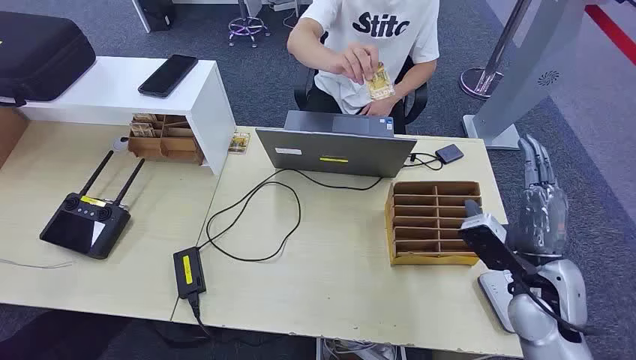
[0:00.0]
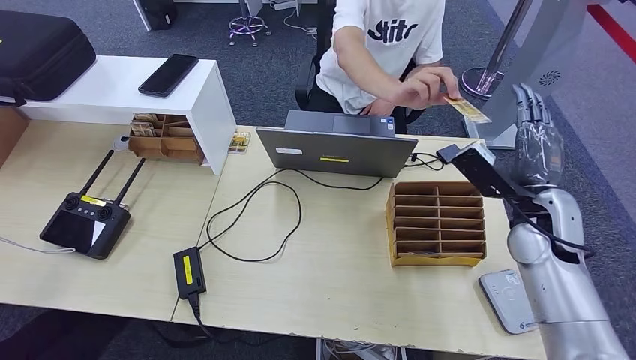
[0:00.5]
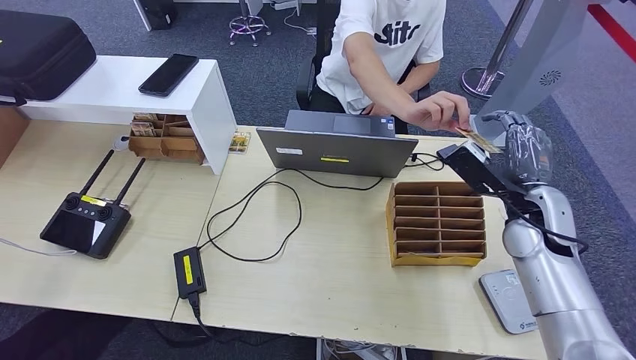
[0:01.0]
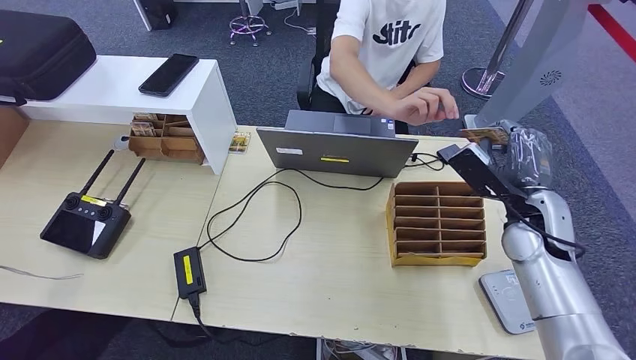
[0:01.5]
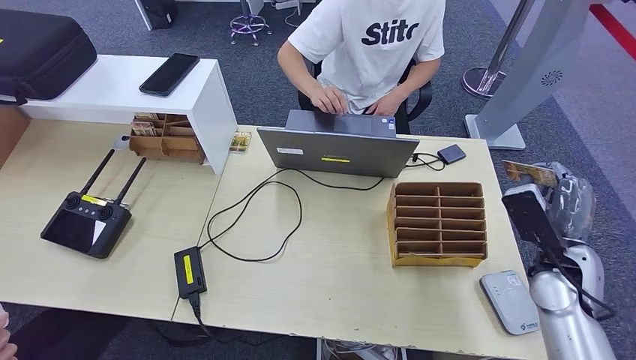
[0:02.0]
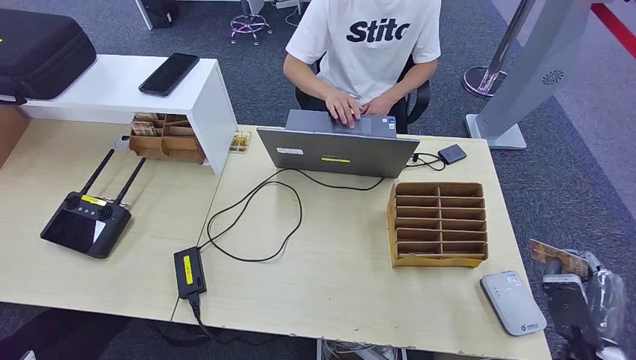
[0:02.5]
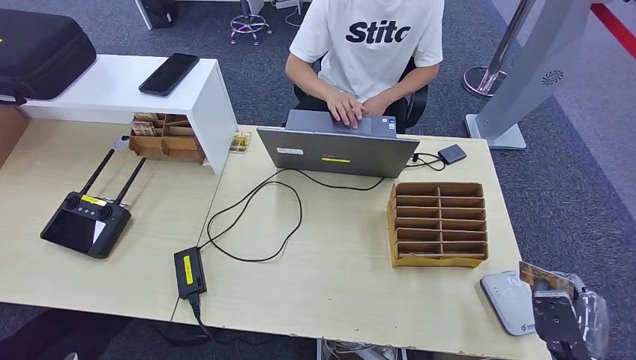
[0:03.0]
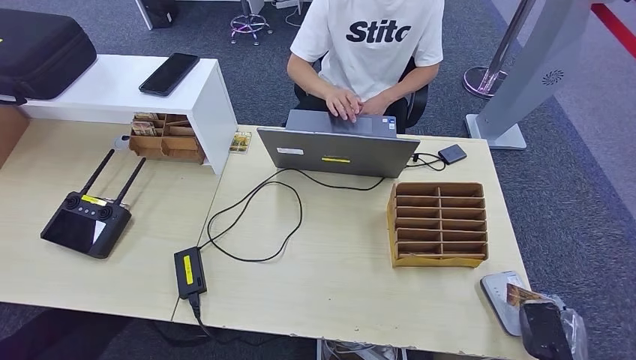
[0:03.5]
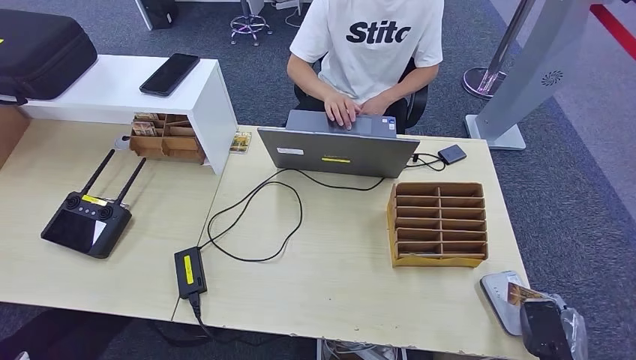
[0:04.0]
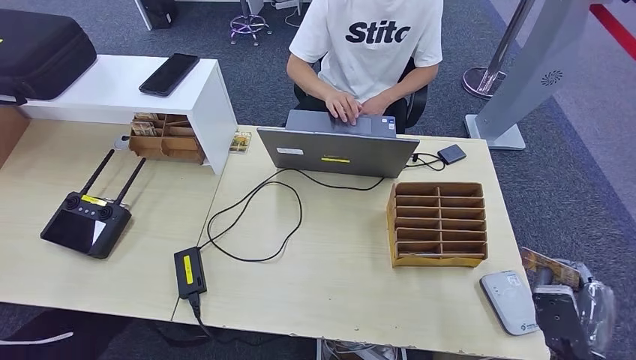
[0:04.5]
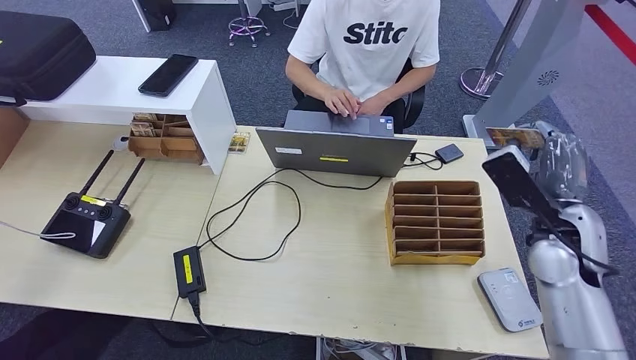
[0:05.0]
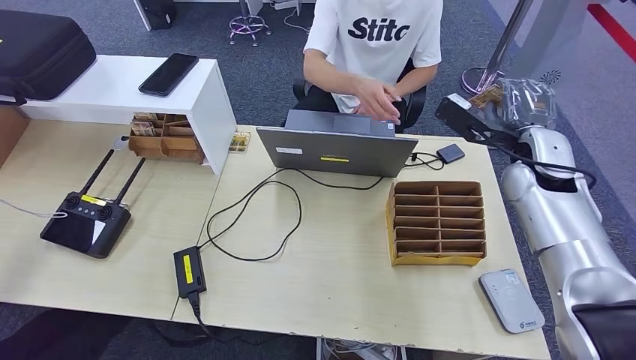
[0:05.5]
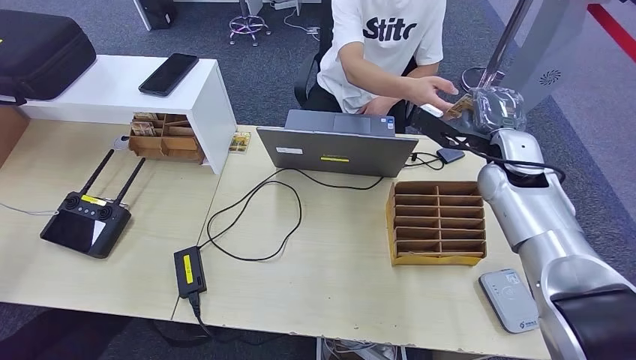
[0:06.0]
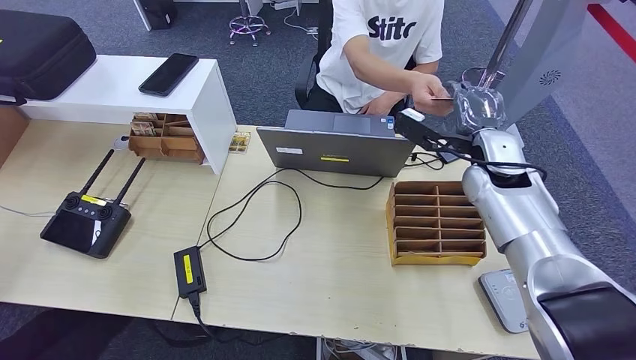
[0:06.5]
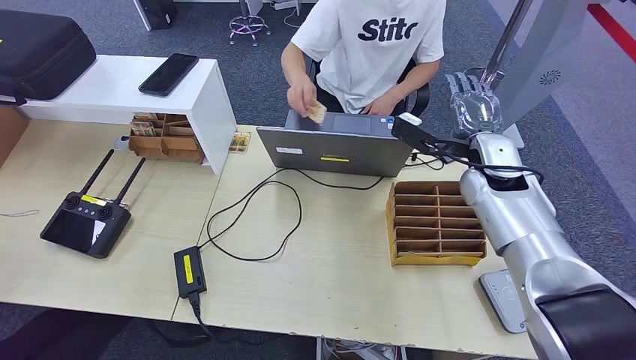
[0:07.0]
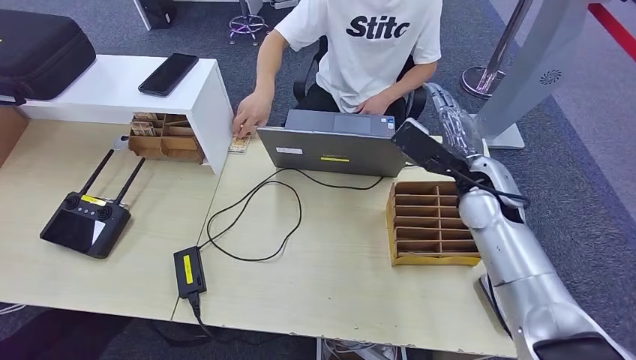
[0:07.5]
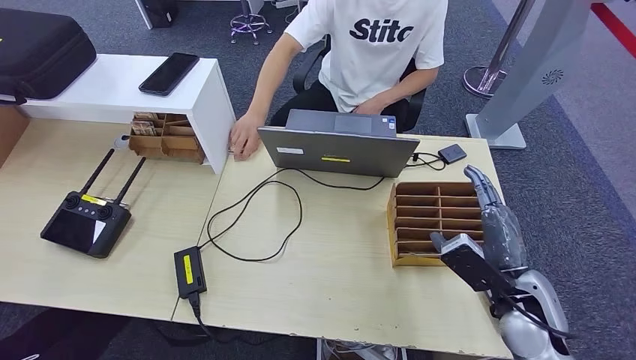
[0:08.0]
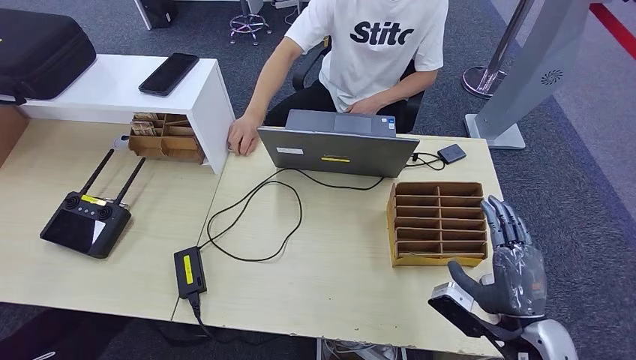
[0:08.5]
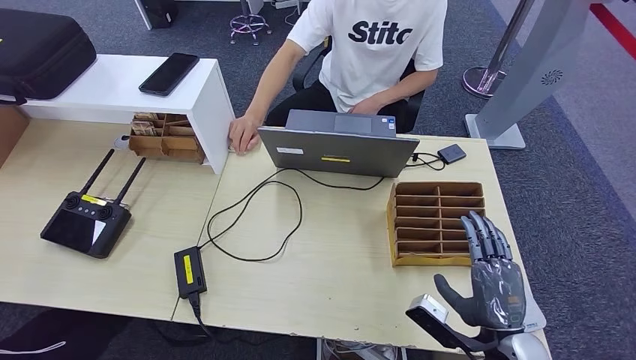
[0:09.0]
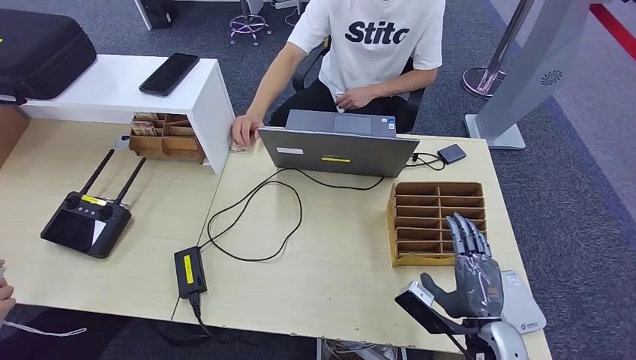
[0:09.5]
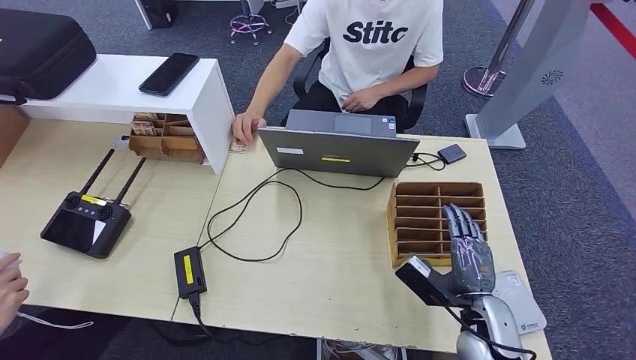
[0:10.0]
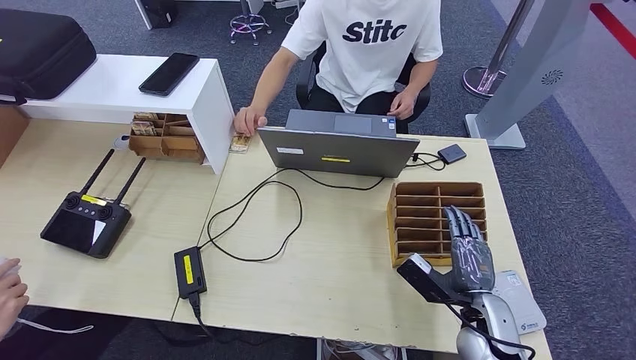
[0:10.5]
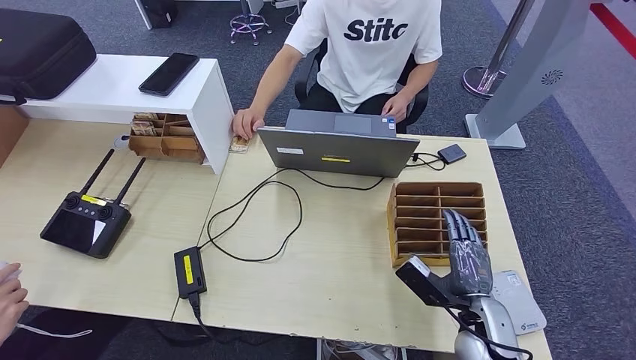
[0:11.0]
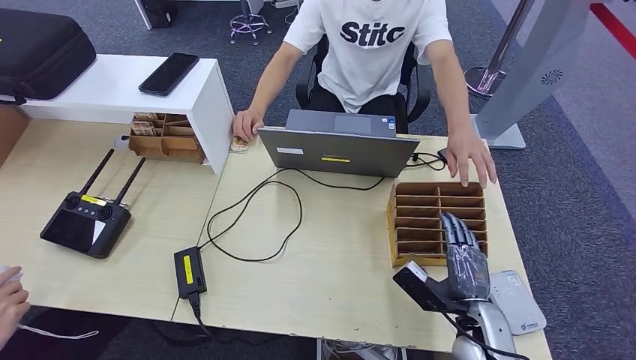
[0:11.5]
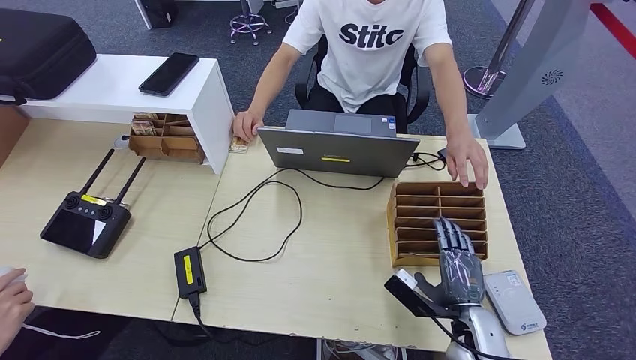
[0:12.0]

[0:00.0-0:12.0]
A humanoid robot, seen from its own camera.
Step, 0:00.0 to 0:02.5: Take the ID card from the person's hand.
Step, 0:03.0 to 0:05.0: Place the ID card on the card reader.
Step, 0:05.5 to 0:08.0: Hand the ID card to the person.
0:02.0 to 0:04.0: The right hand is displaced backward and downward by roughly 20 cm.
0:04.0 to 0:06.0: The right hand shifts some 40 cm forward and upward.
0:06.0 to 0:08.0: The right hand heads backward and downward, covering about 20 cm.
0:08.0 to 0:10.0: The right hand travels downward by approximately 10 cm.
0:10.0 to 0:12.0: There are only small adjustments of the hands.

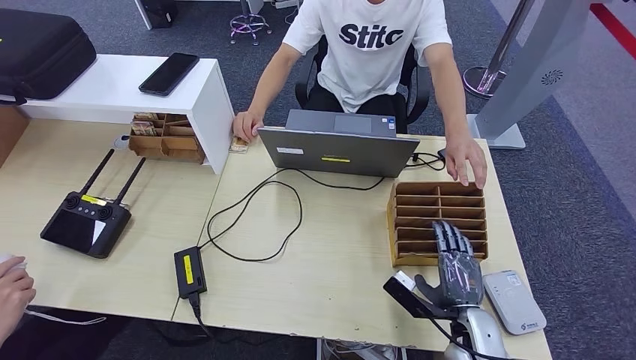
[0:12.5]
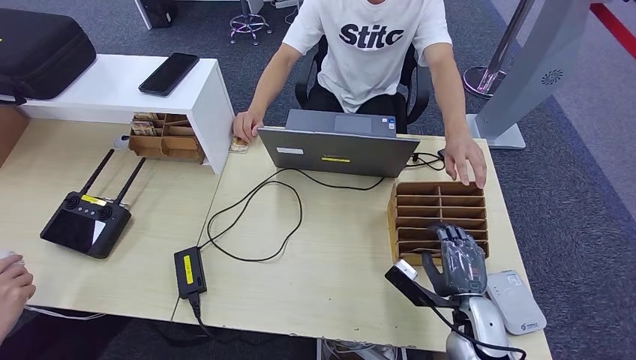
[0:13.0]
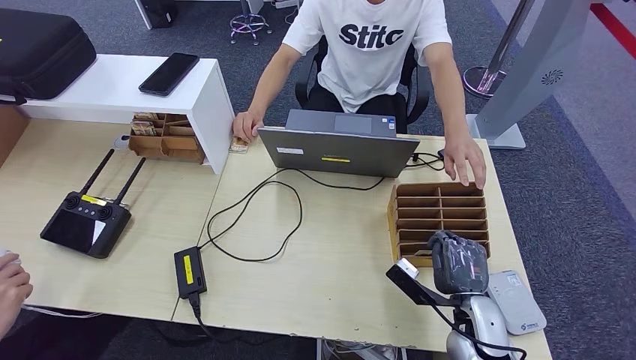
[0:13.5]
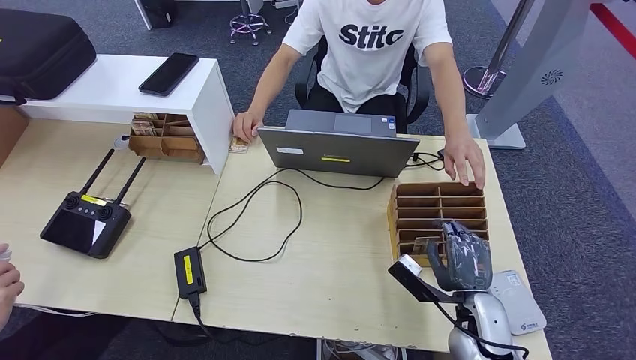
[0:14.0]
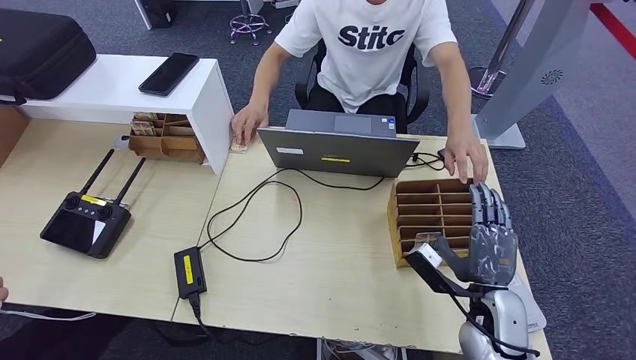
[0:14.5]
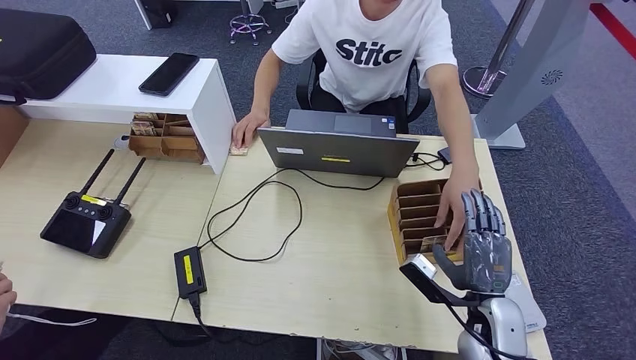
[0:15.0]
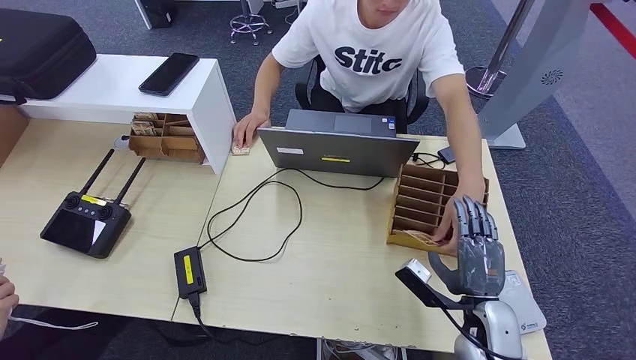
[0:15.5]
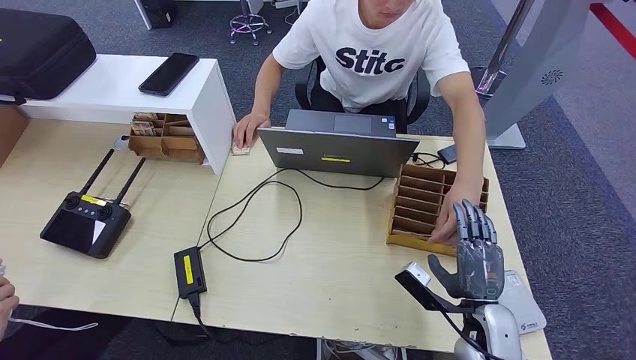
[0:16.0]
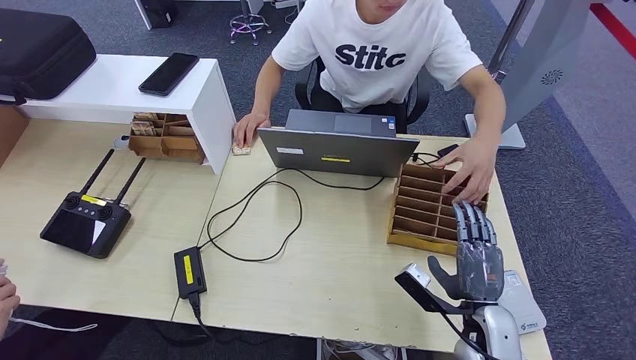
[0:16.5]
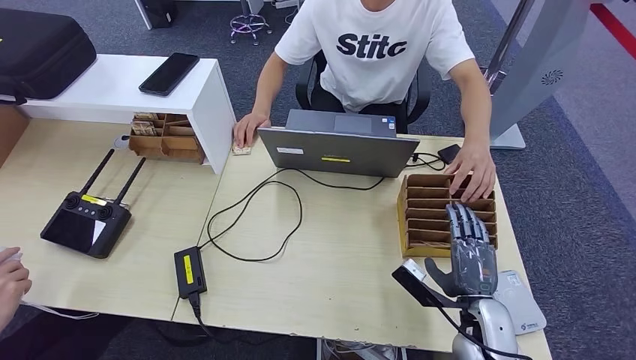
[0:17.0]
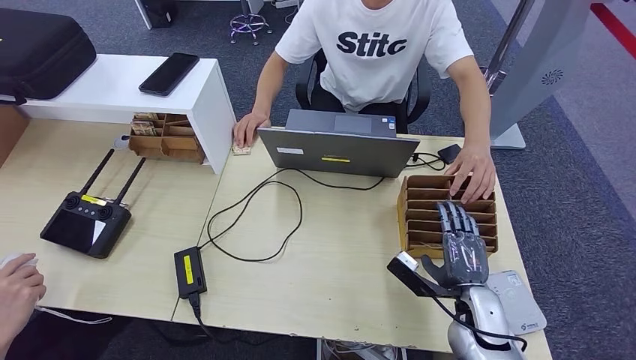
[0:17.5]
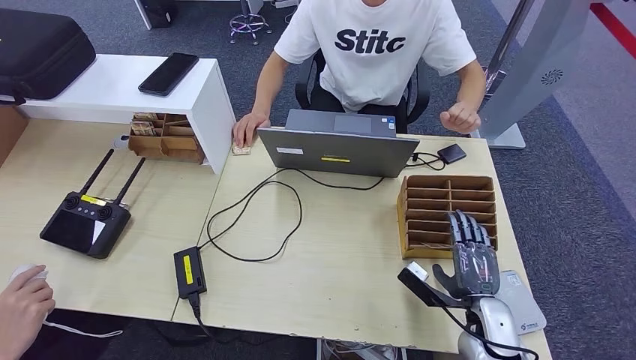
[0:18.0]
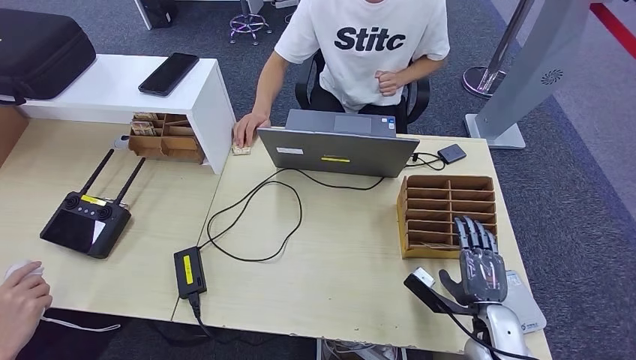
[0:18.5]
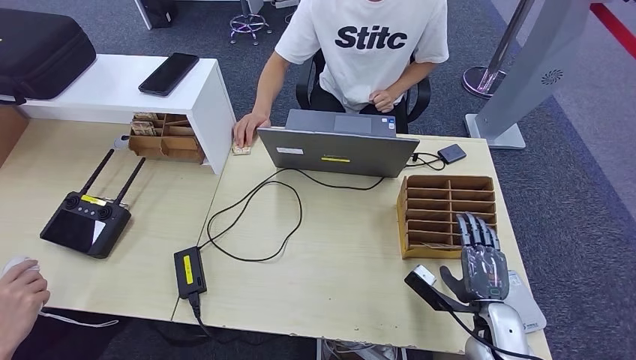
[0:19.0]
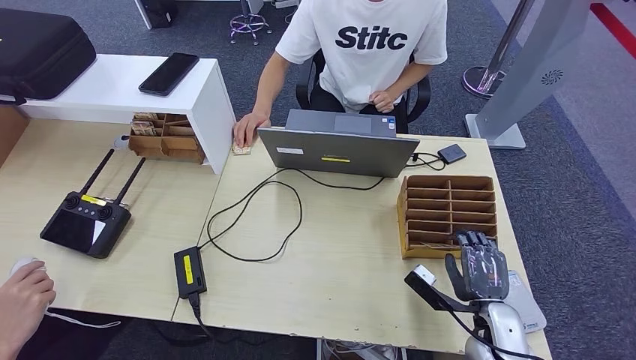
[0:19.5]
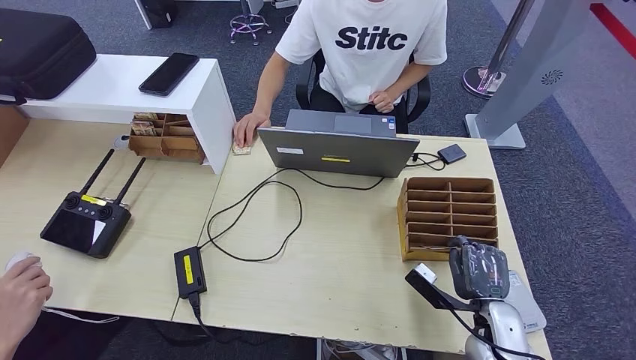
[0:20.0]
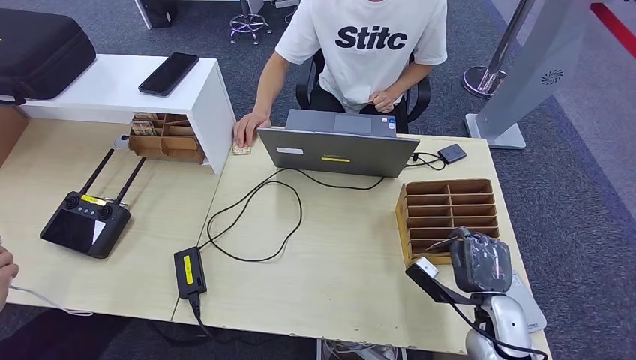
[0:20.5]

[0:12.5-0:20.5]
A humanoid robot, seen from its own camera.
0:12.5 to 0:14.5: The right hand goes some 5 cm upward.
0:14.5 to 0:16.5: The hands make only small movements.
0:16.5 to 0:20.5: The hands move only a little.
